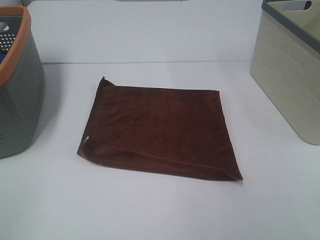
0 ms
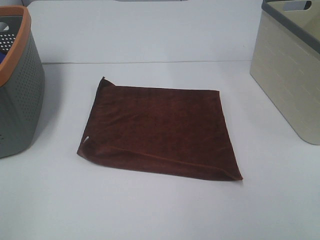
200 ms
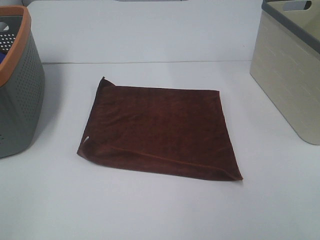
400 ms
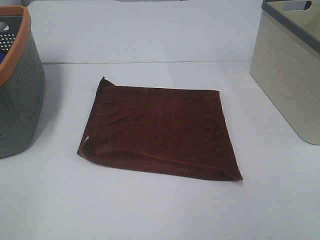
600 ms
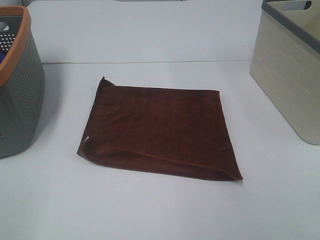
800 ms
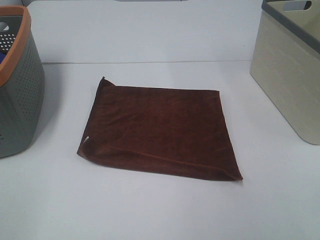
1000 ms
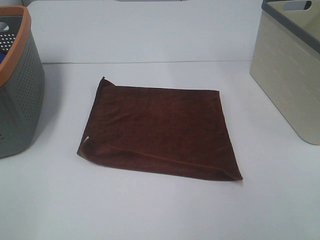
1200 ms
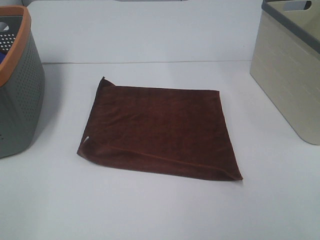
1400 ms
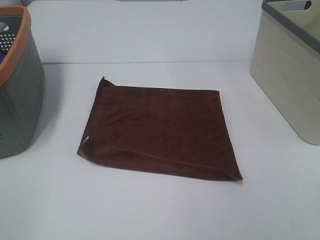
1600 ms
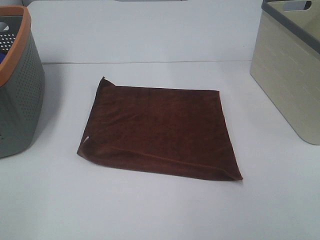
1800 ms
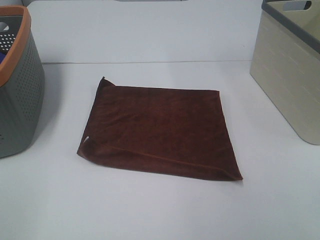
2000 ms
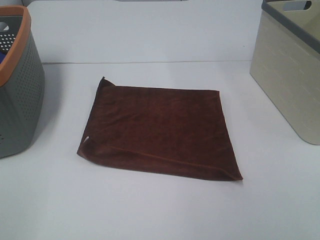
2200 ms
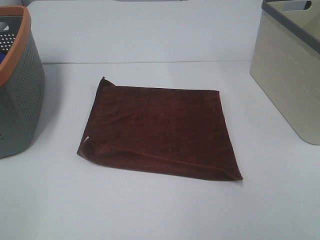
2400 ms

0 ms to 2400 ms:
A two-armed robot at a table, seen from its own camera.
Task of the whole recording: Remove the towel and place it.
0 ms to 2400 ms: The two grippers keep their place.

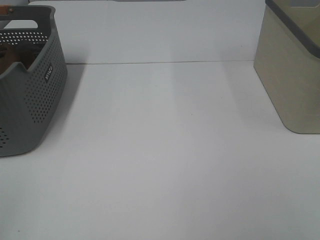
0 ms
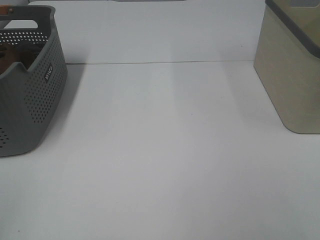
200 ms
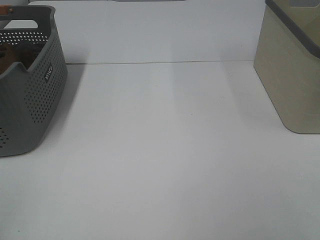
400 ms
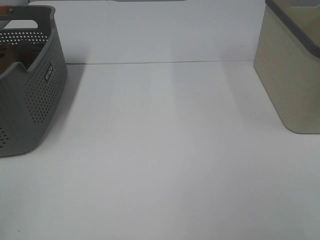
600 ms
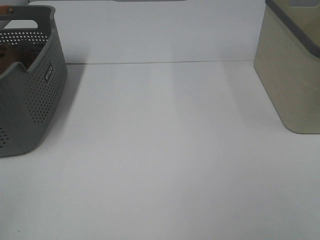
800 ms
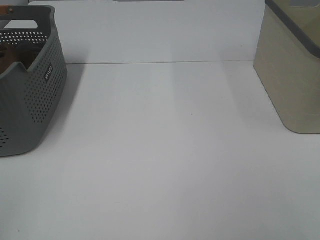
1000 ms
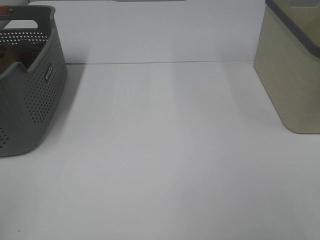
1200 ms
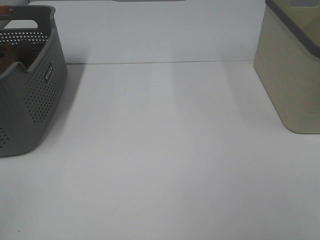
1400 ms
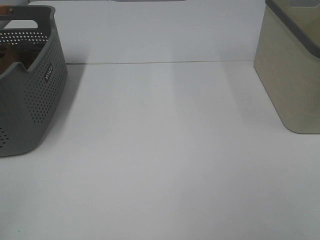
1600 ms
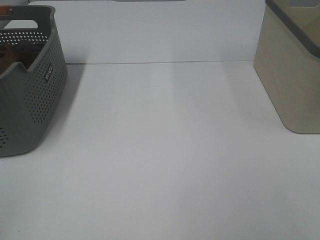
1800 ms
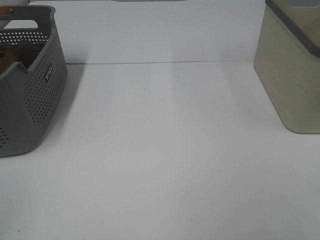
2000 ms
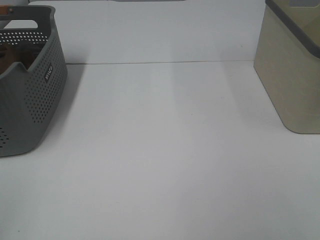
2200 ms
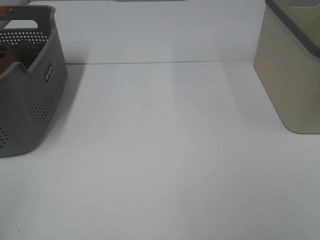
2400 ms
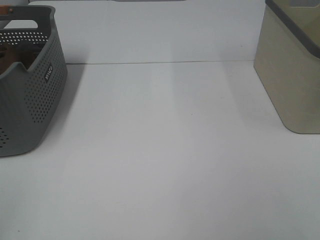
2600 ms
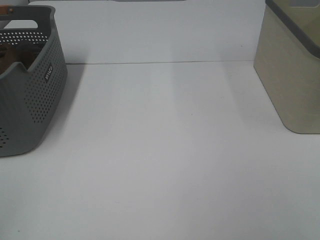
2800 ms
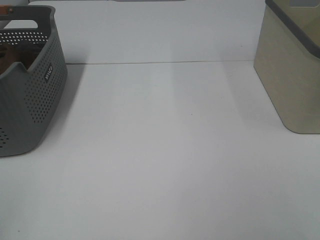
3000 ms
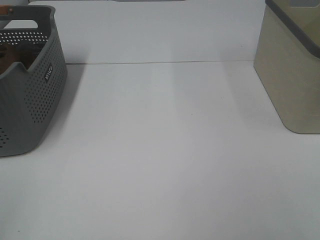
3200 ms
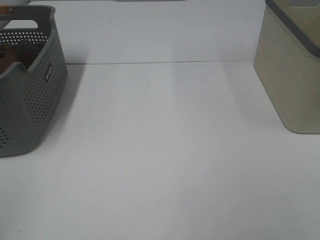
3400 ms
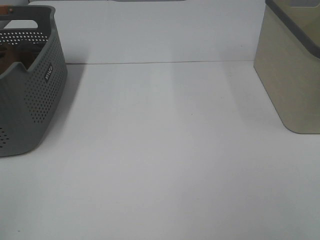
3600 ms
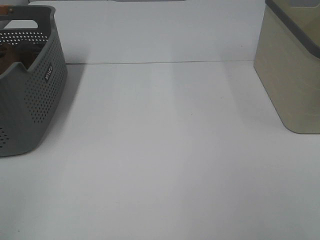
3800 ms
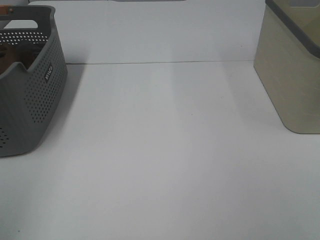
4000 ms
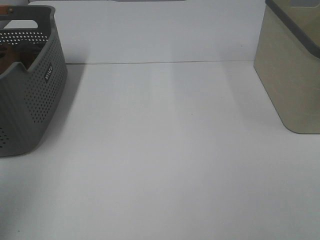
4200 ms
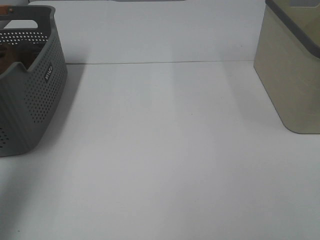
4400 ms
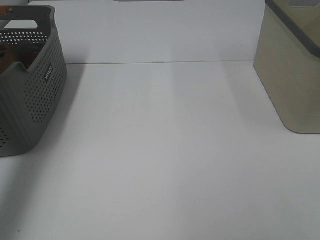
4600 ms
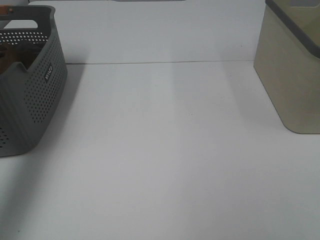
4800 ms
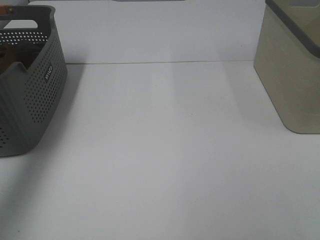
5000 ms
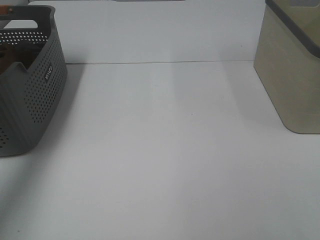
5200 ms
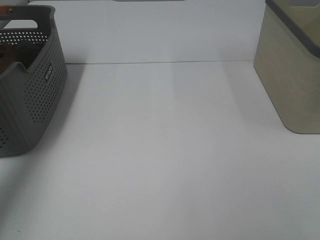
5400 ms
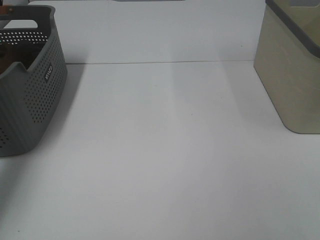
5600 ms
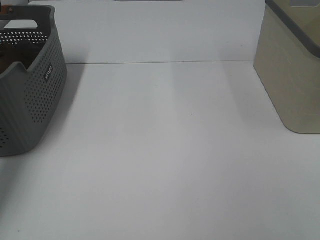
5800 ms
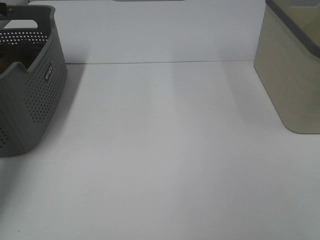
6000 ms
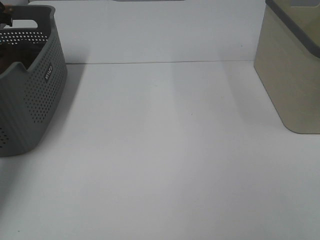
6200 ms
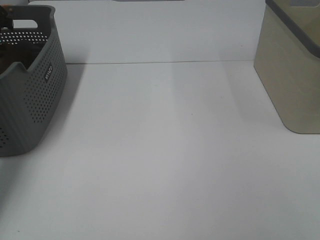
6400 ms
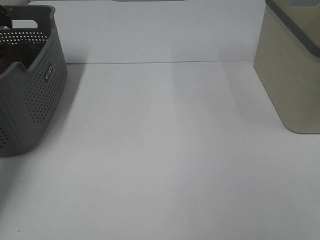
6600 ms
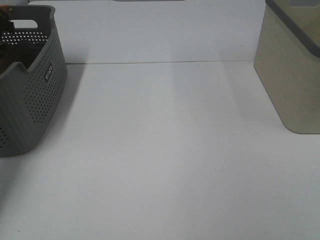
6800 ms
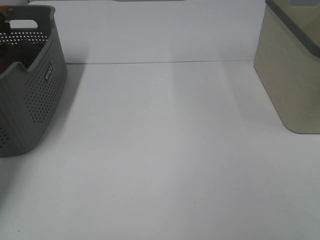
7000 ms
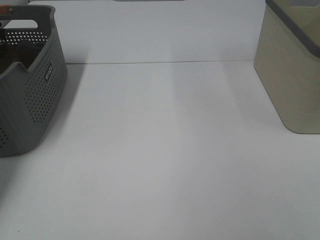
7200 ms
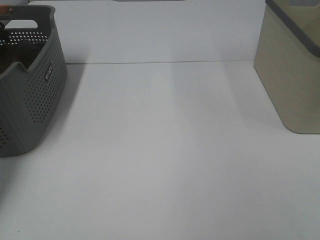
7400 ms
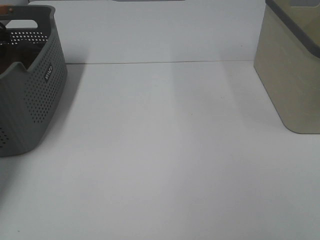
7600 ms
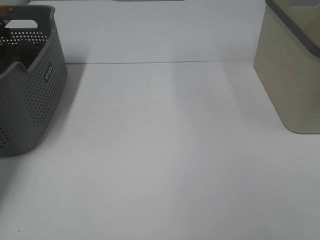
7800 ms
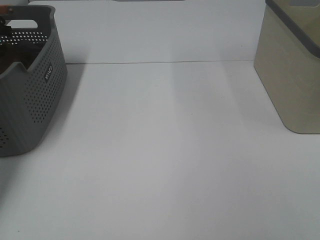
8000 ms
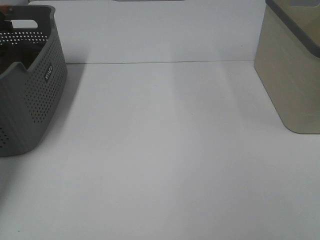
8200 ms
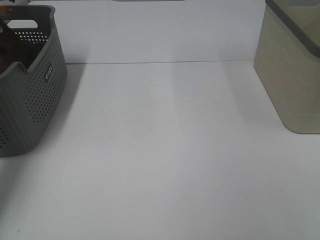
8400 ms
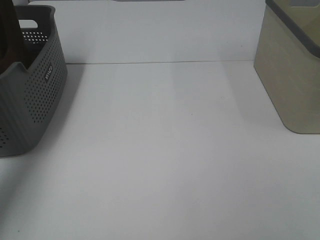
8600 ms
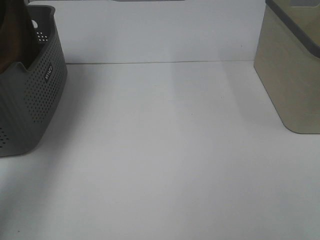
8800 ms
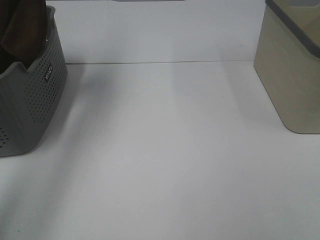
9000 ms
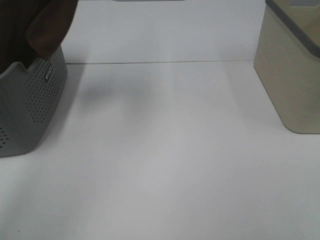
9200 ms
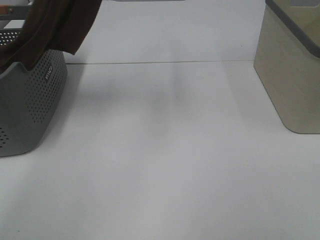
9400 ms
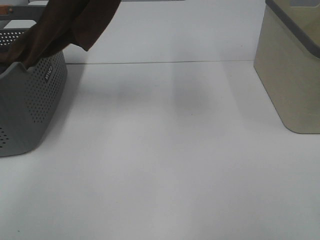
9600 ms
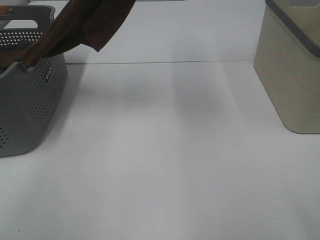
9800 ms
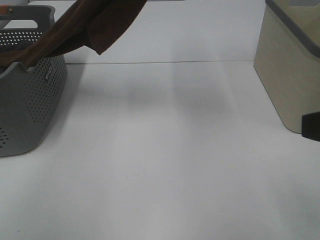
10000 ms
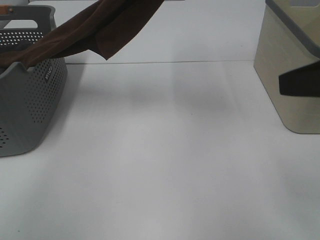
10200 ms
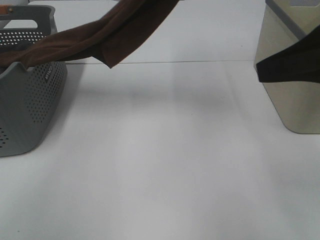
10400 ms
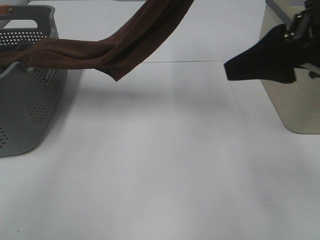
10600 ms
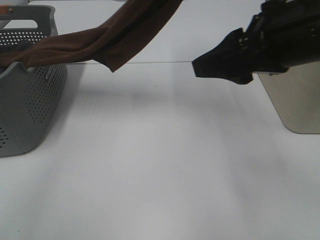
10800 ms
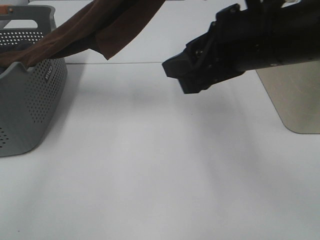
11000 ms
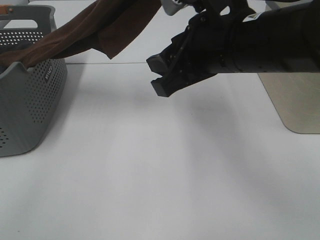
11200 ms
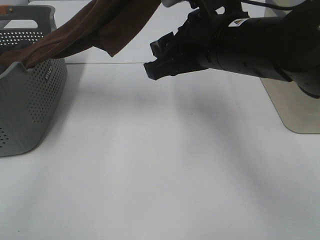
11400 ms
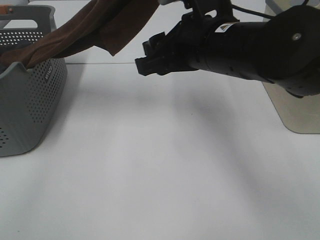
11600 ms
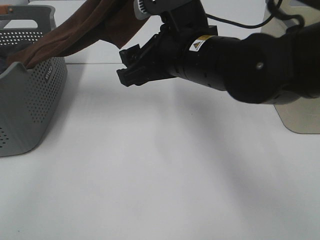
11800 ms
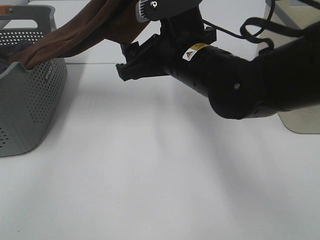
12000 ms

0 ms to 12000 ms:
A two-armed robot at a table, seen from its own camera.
Task of the whole recording: Remove the towel and place it.
0 ms to 3000 ms: Both grippers stay put.
3000 ms to 4400 ms: The left gripper heads forward and upward, covering roughly 20 cm.
4400 ms to 6000 ms: The left gripper shifts roughly 35 cm forward.
7600 ms to 9000 ms: The left gripper shifts approximately 35 cm upward and to the right, and closes up.
9000 ms to 10400 ms: The right gripper goes some 20 cm forward; the left gripper is displaced to the right by roughly 25 cm.
10400 ms to 12000 ms: The left gripper shifts some 5 cm upward, while the right gripper goes approximately 20 cm to the left, downward and forward.

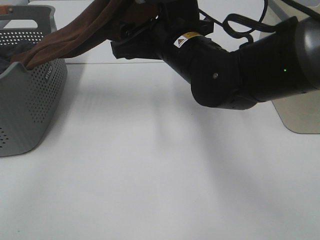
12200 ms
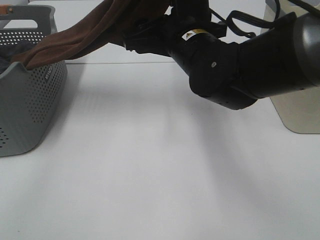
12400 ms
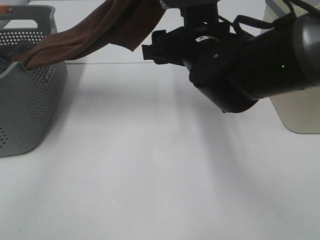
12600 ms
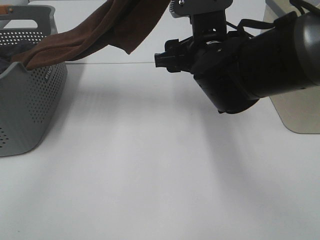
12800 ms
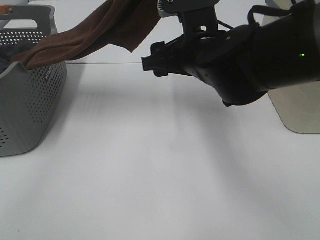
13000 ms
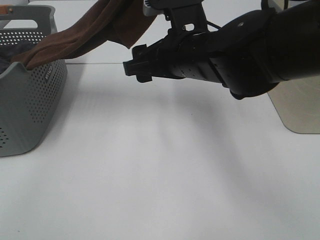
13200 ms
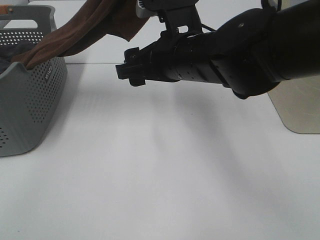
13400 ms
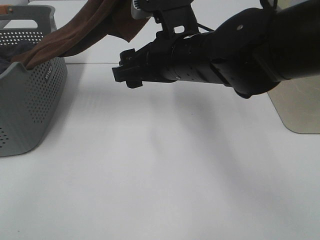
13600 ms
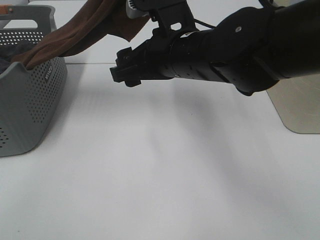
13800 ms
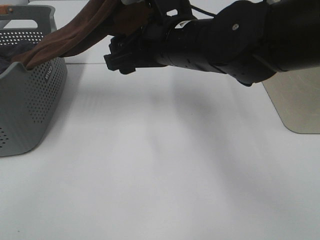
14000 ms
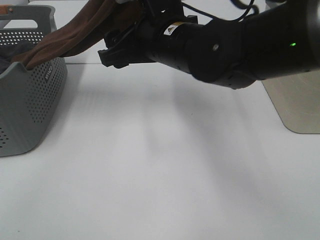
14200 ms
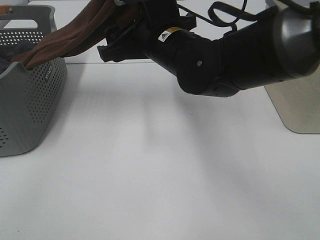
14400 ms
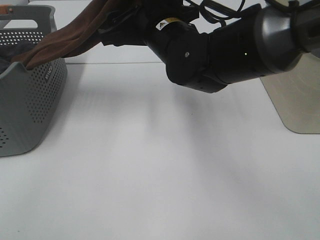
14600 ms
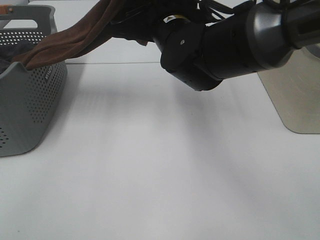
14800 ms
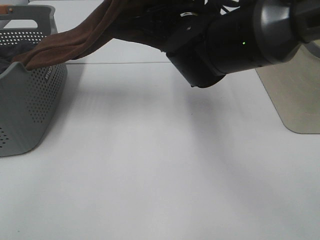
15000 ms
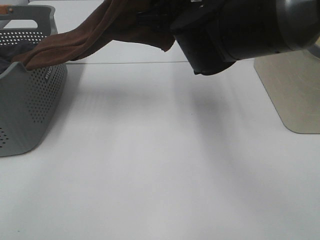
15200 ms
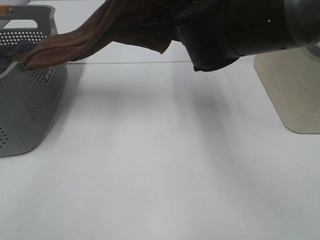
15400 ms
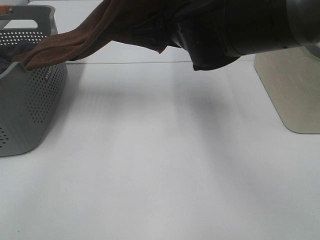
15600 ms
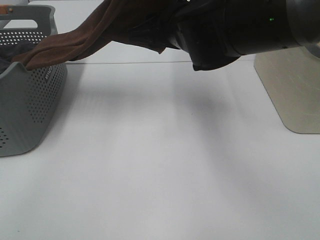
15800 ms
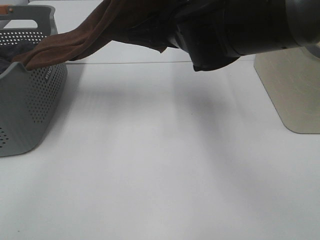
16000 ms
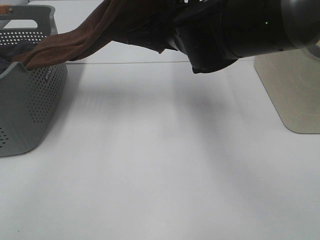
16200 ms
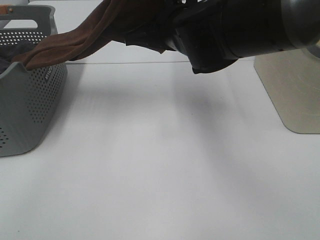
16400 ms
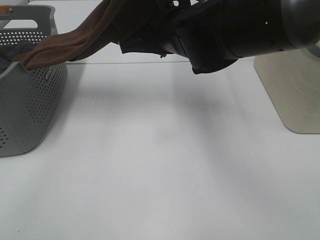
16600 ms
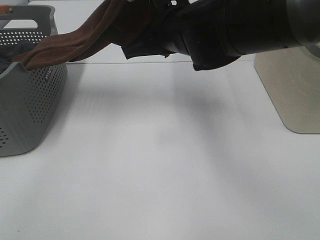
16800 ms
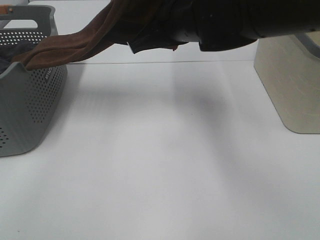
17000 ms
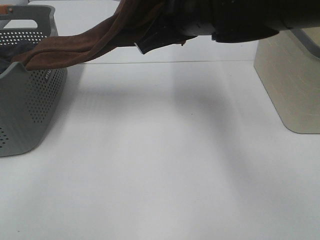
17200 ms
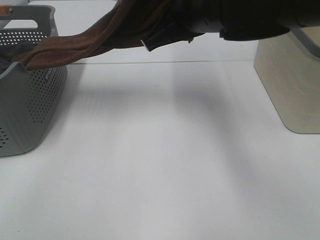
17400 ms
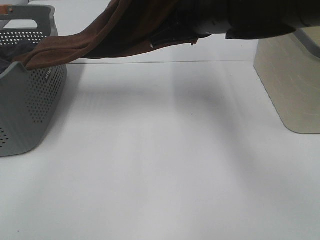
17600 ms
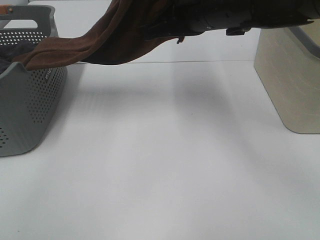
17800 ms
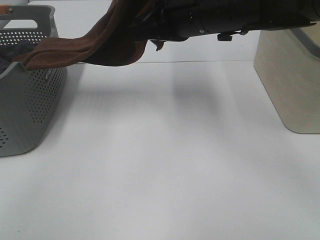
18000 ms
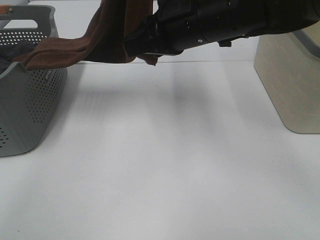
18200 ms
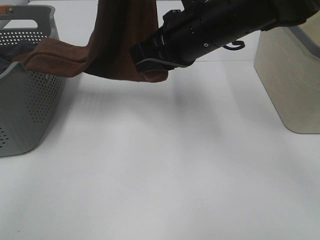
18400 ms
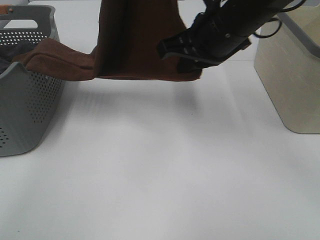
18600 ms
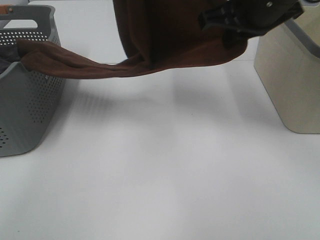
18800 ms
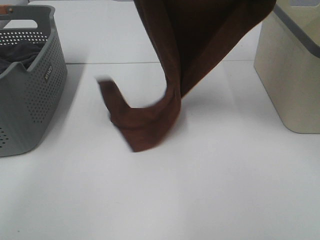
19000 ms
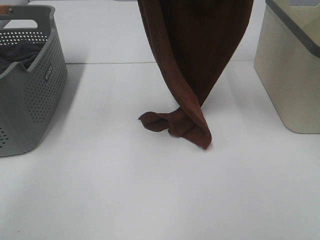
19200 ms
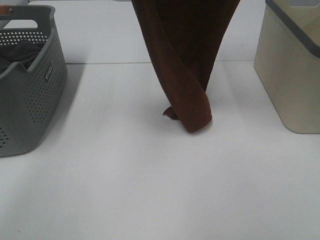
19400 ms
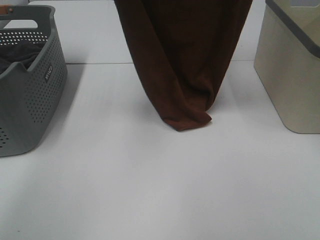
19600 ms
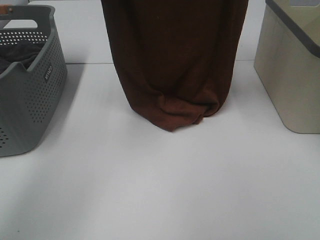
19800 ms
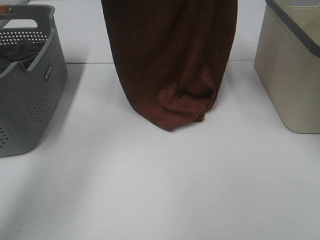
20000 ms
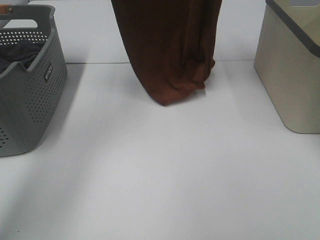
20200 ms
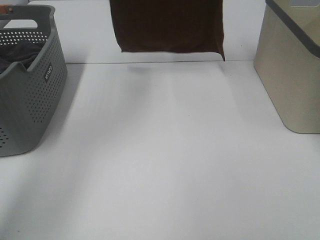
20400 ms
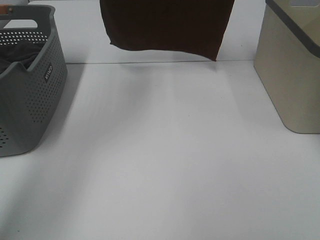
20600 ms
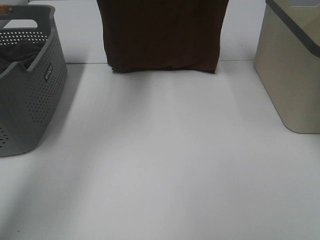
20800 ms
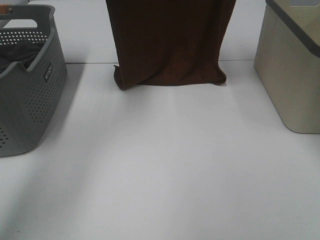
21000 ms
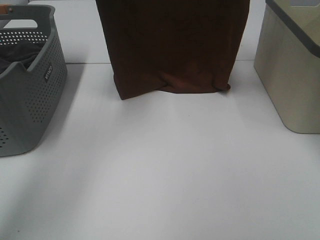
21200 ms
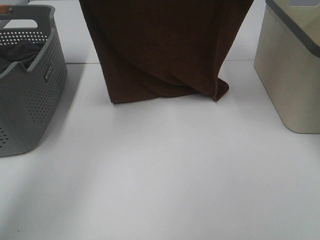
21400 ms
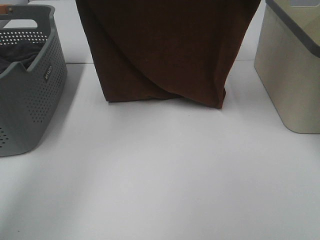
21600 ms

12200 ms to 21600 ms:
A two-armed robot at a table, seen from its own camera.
Task of the whole recording: Remove the towel and place it.
Step, 12200 ms to 16000 ms: Right hand: grab a corner of the brown towel and straighten it.
Step, 16200 ms to 19200 ms: Left hand: spread the brown towel flat on the table.
Step, 16200 ms to 19200 ms: Right hand: spread the brown towel flat on the table.
15400 ms to 17000 ms: The right gripper closes its fingers.
17000 ms to 18400 ms: The left gripper heads to the left, covering about 5 cm.
18400 ms to 20000 ms: The left gripper heads forward, to the left and downward, covering about 15 cm, while the right gripper is displaced upward, forward and to the right by approximately 20 cm.
20000 ms to 21600 ms: The left gripper shifts some 5 cm backward, and reaches roughly 10 cm upward, then returns. Meanwhile the right gripper moves about 10 cm upward and comes back.
